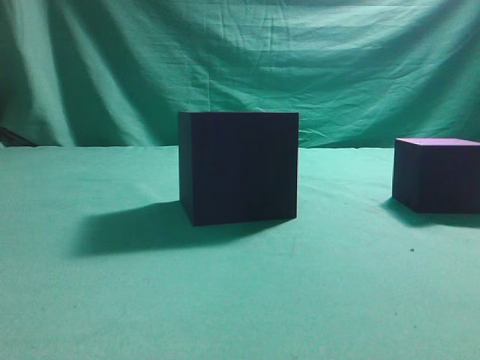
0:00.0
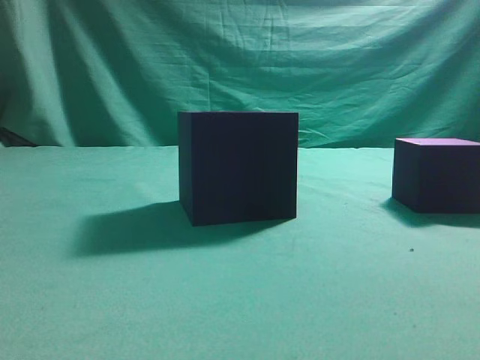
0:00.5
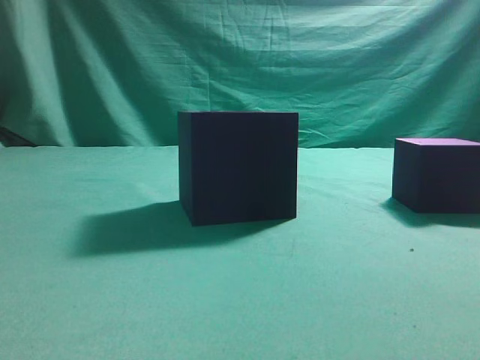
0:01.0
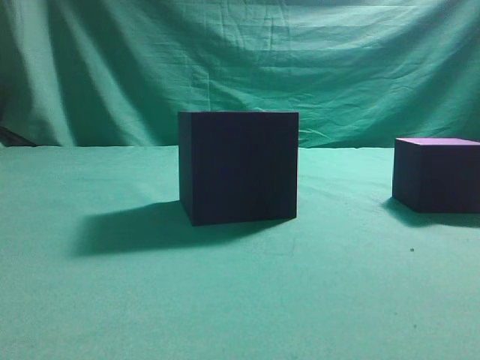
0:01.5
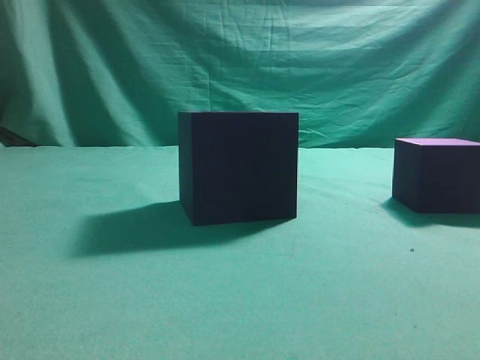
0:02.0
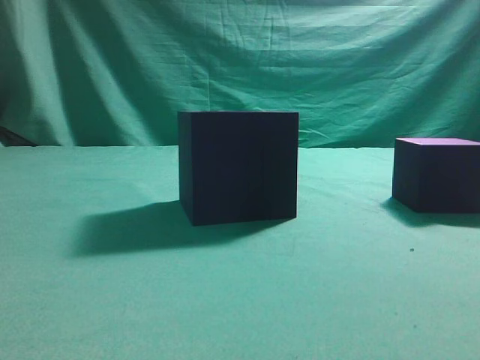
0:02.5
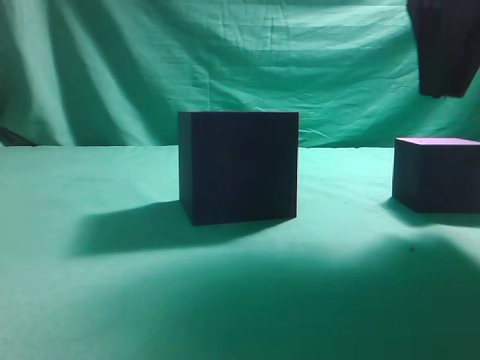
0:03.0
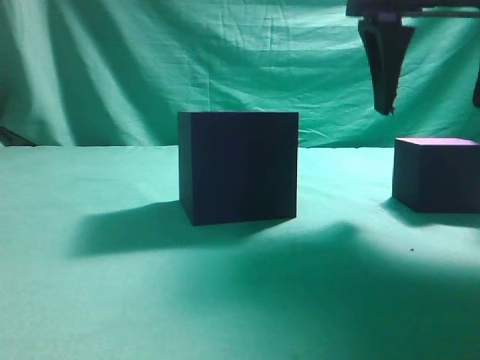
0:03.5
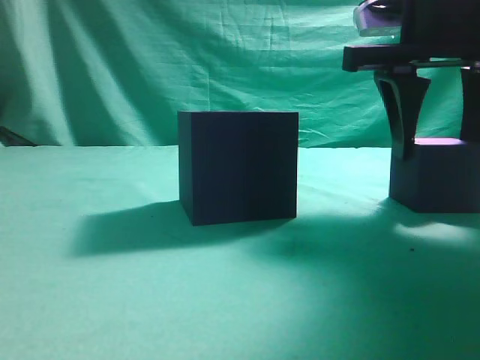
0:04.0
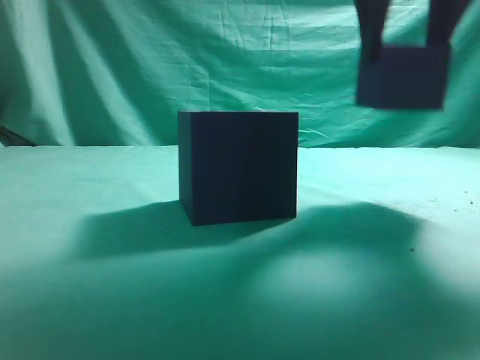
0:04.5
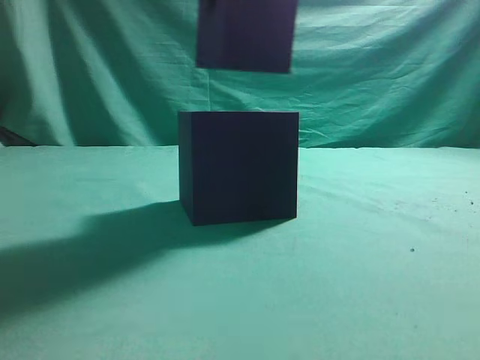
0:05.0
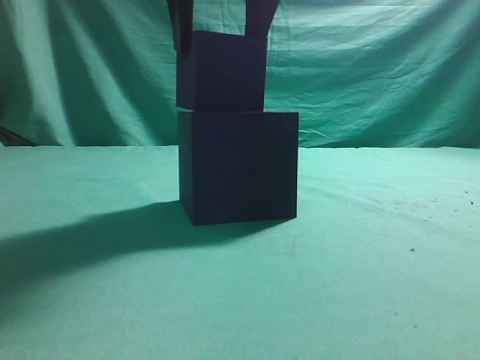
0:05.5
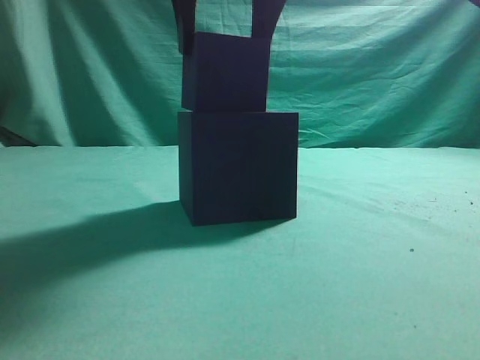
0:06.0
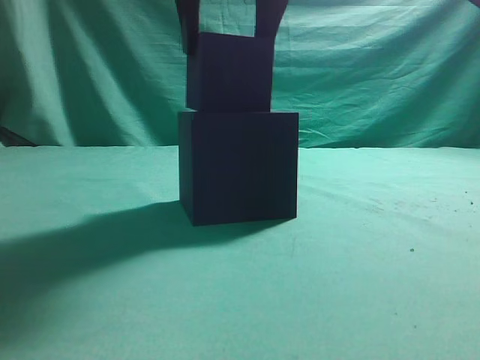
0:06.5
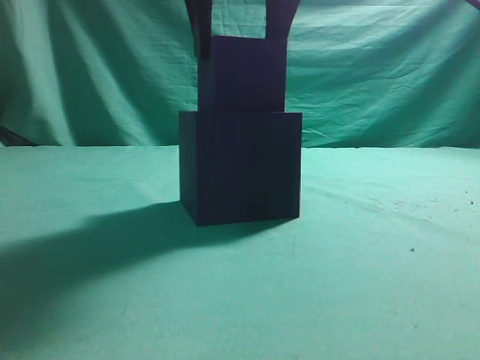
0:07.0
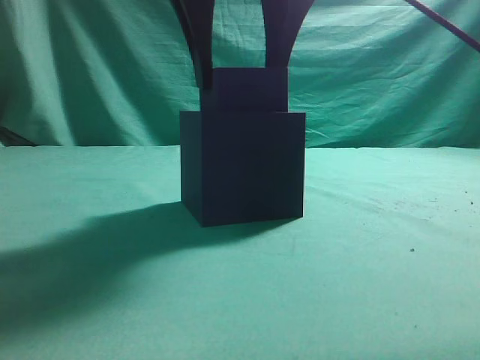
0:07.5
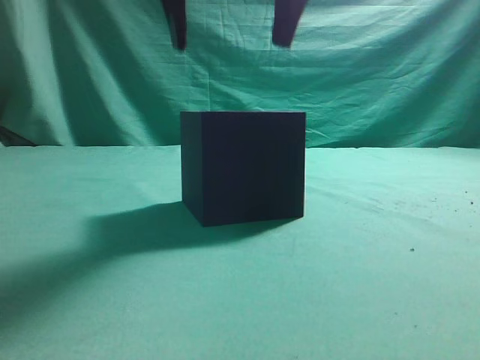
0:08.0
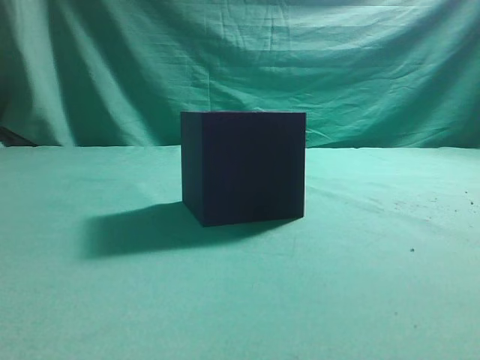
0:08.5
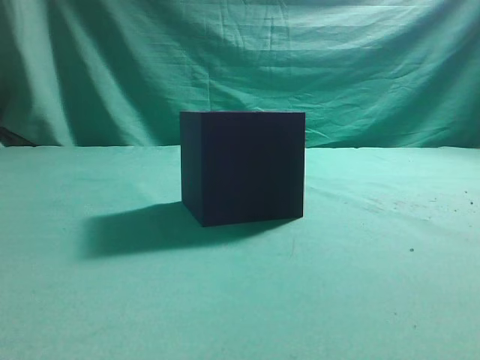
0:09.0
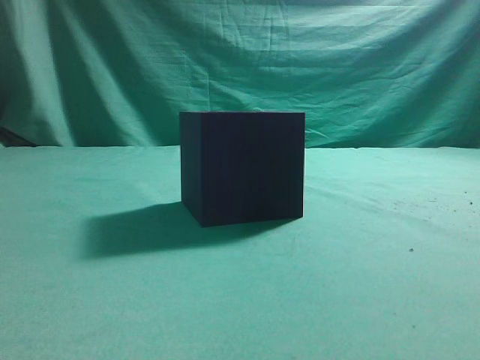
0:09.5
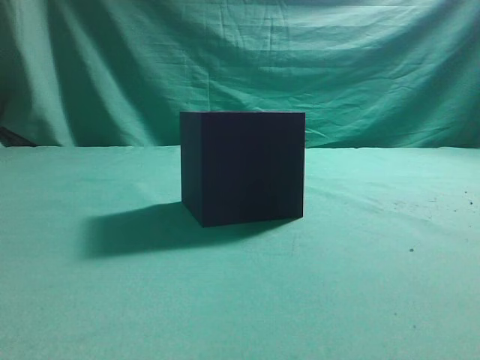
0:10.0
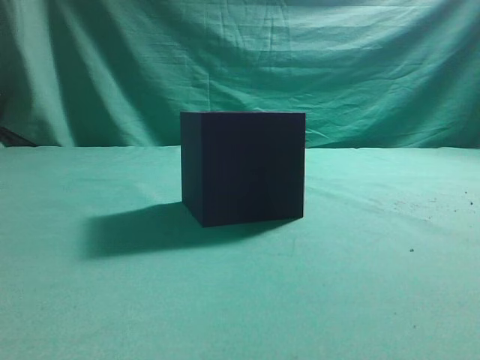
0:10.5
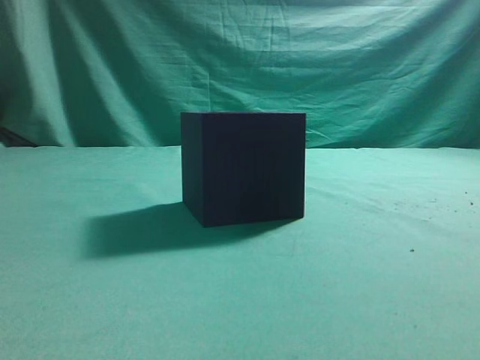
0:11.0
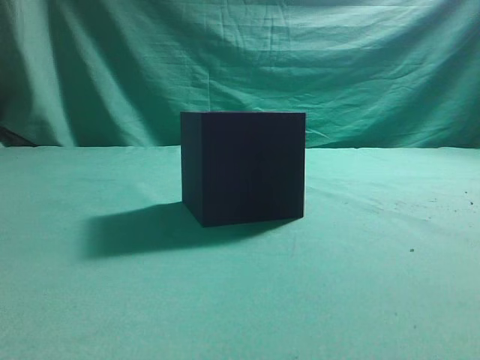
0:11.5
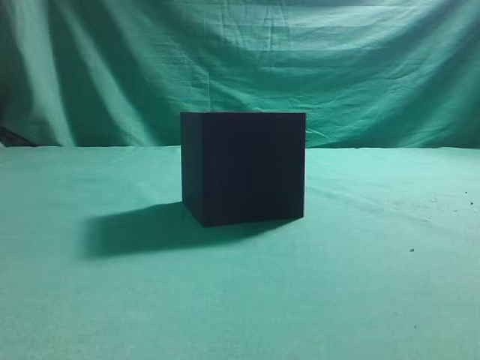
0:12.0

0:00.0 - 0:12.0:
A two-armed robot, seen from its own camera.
Task of the whole recording: pick up the cube block and place it into the cube groove.
Step, 0:00.0 - 0:04.0: Grasp the cube.
Step, 0:04.5 - 0:07.5: Place cube into the cube-shaped recess.
0:02.0 - 0:04.0: The right gripper shifts some 20 cm forward and to the left, and opens up.
0:04.0 - 0:06.0: The right gripper heads to the left and upward, covering some 20 cm.
0:06.0 - 0:08.0: The grippers move only a little.
0:08.0 - 0:10.0: The right gripper travels to the right and backward by about 35 cm, and closes up.
